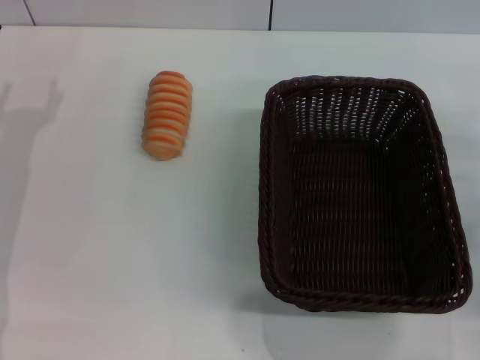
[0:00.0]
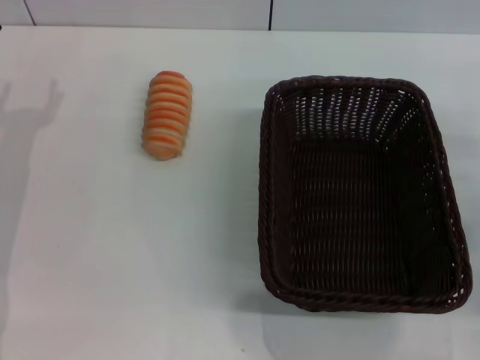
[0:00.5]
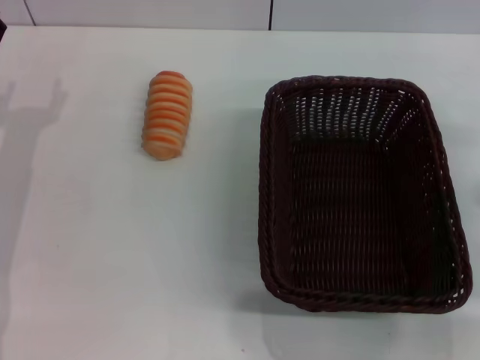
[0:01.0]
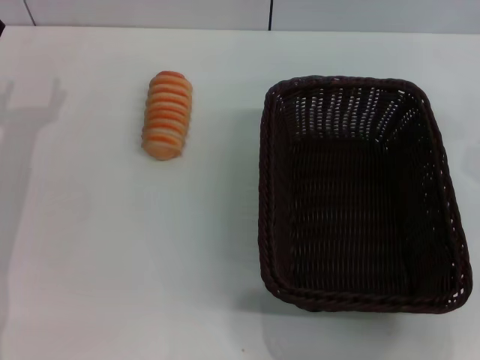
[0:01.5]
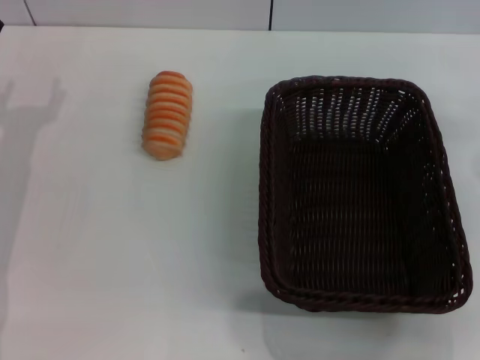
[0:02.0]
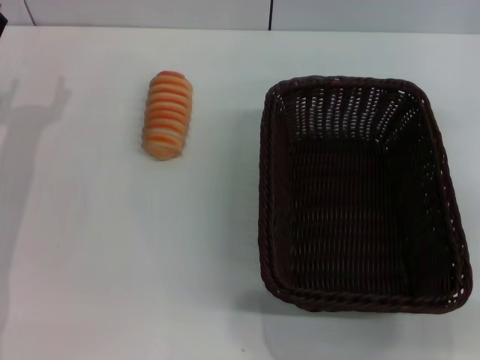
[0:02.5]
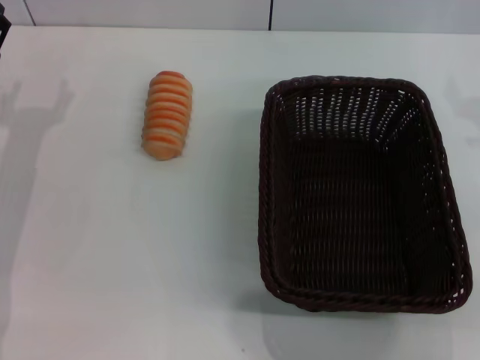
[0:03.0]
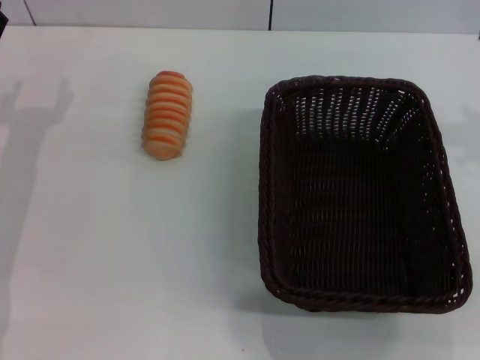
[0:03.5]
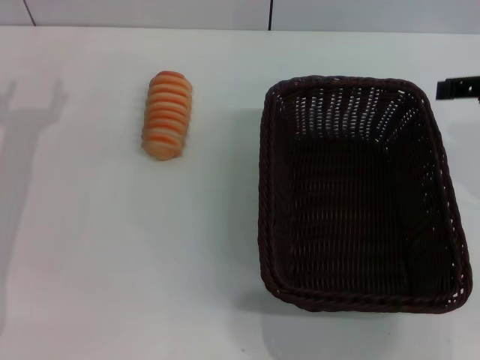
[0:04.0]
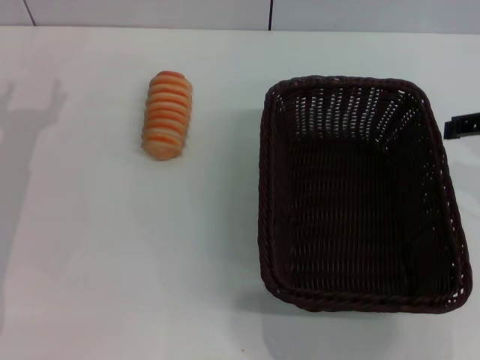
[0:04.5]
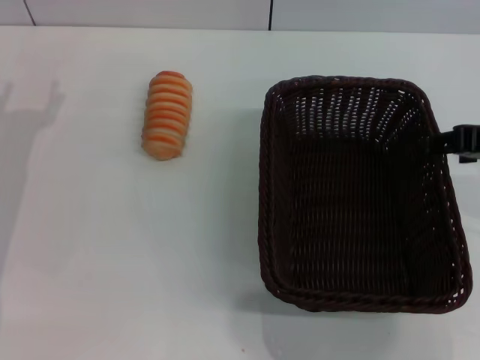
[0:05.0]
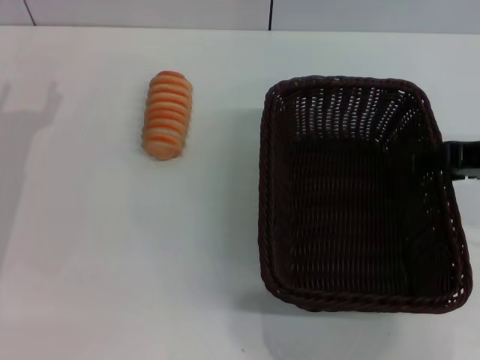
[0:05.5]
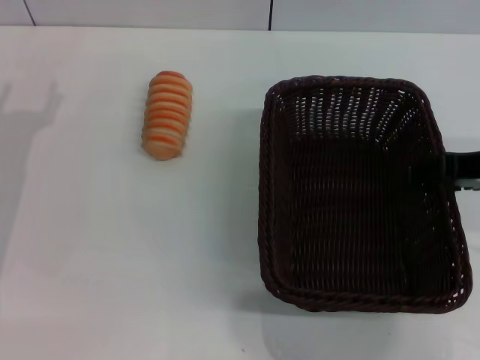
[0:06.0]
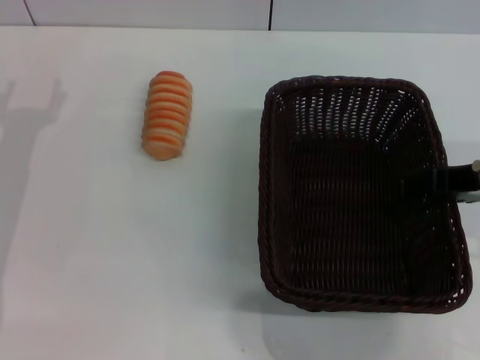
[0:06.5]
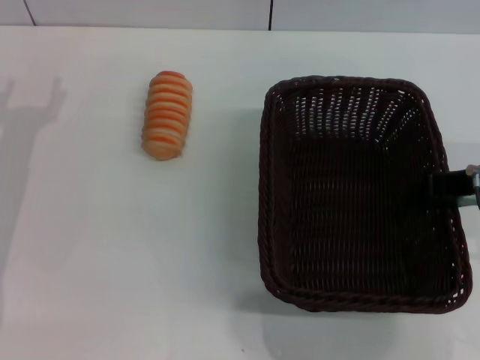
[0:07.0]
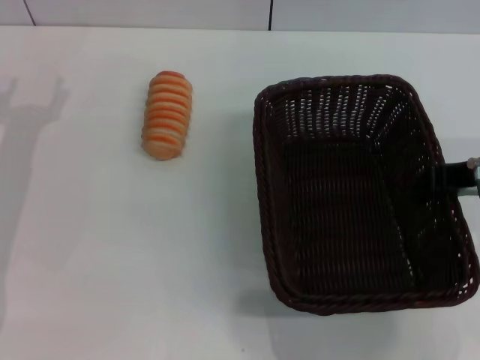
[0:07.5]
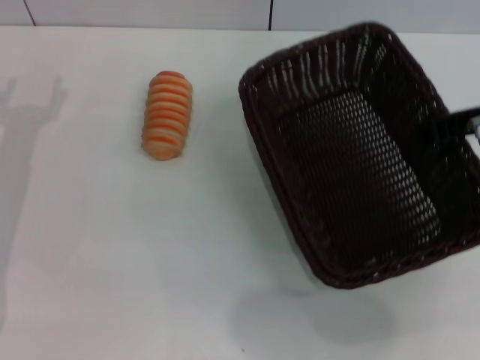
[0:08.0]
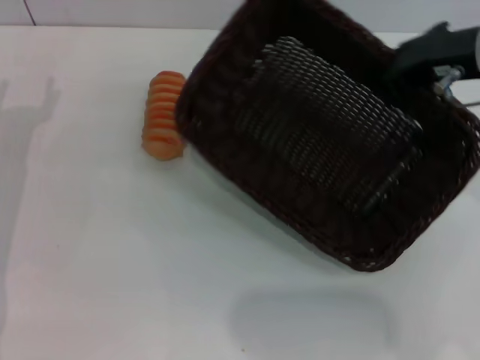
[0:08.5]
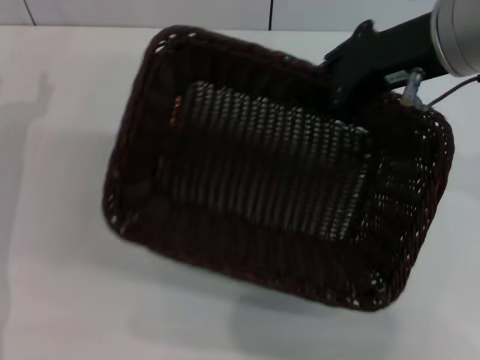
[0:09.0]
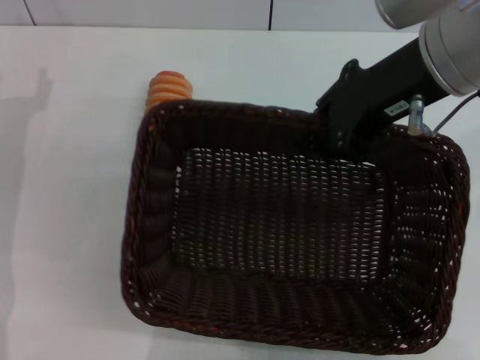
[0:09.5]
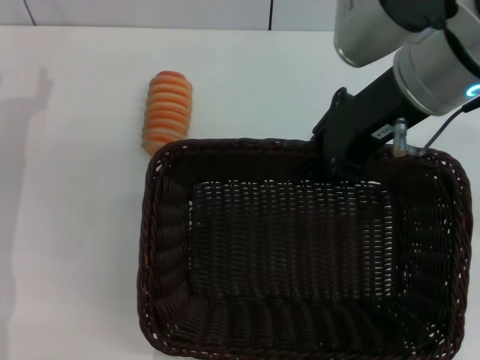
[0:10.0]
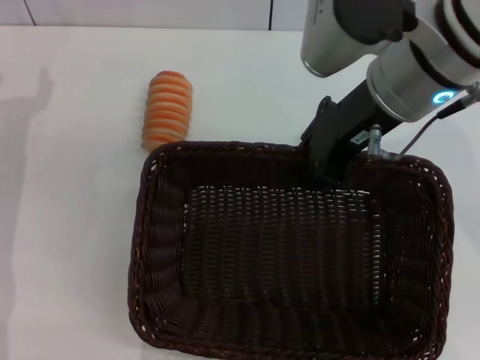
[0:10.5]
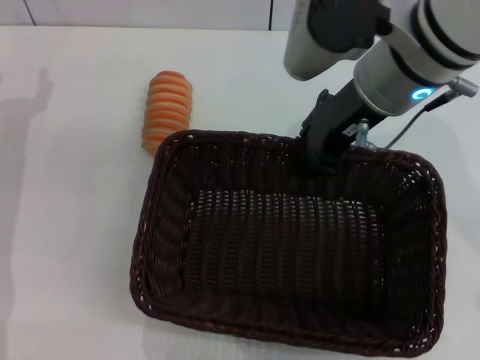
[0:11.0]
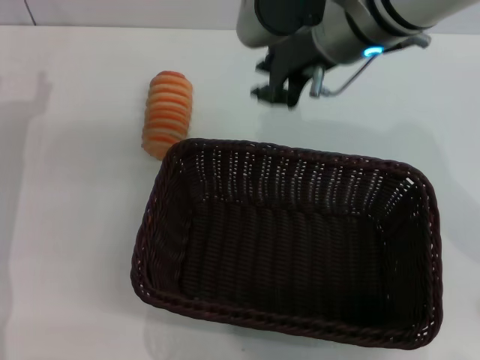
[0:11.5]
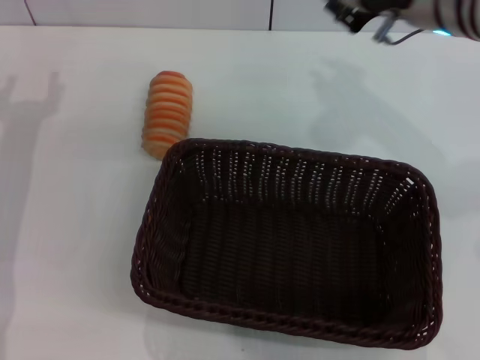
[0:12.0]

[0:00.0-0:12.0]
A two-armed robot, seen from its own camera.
Step, 0:00.0 to 0:08.0: Pick up the dark basket with the right gripper.
Step, 0:08.5 to 0:11.0: Place the dark basket in the center of view with the right gripper.
0:00.0 to 0:02.0: The right gripper heads upward, covering approximately 5 cm.
0:02.0 to 0:04.0: The right gripper moves upward, approximately 10 cm.
0:04.0 to 0:06.0: The right gripper ends up about 5 cm from where it was.
0:06.0 to 0:08.0: The right gripper closes.
0:08.0 to 0:10.0: The right gripper goes some 10 cm to the left and upward.
0:10.0 to 0:12.0: The right gripper travels forward by about 5 cm.

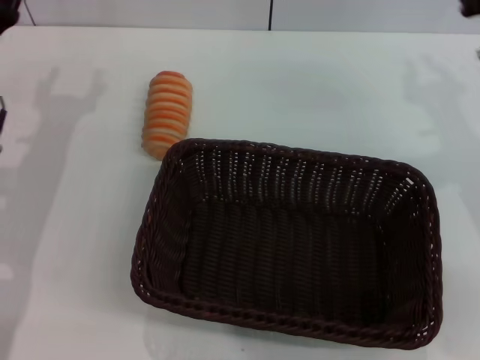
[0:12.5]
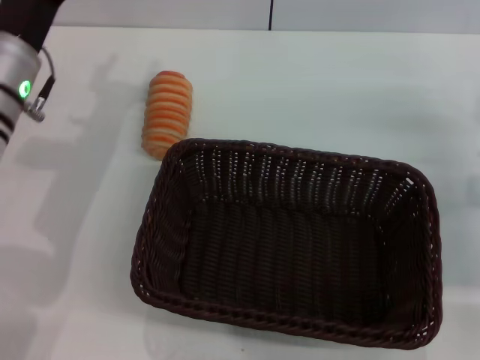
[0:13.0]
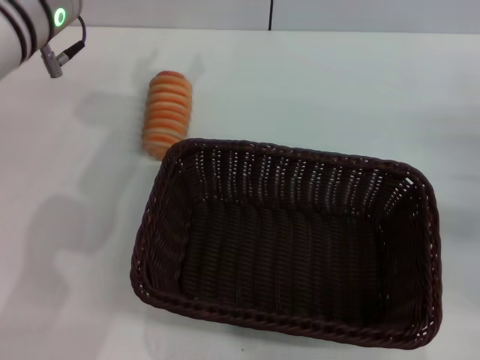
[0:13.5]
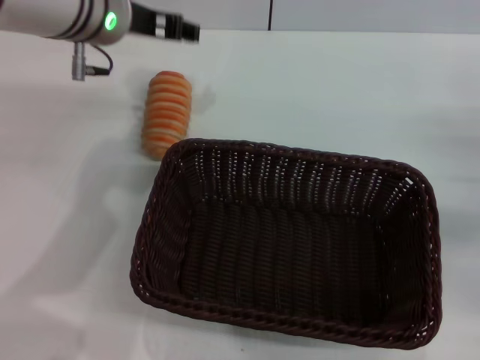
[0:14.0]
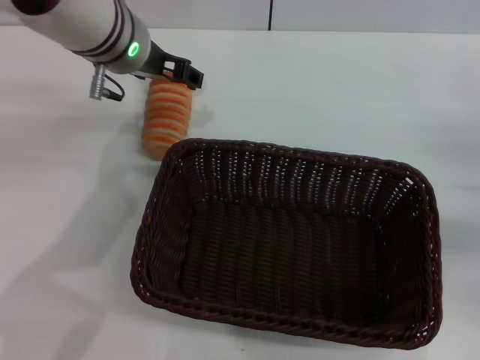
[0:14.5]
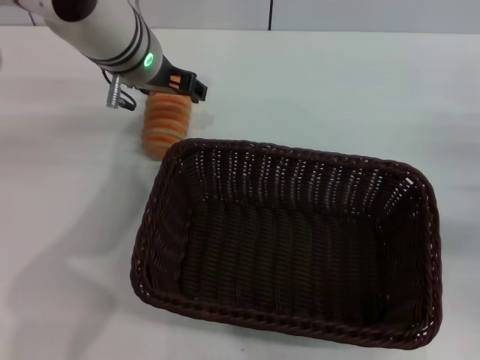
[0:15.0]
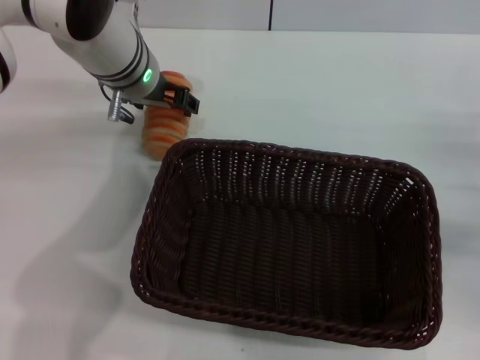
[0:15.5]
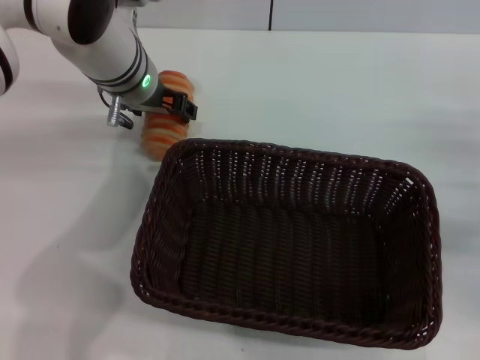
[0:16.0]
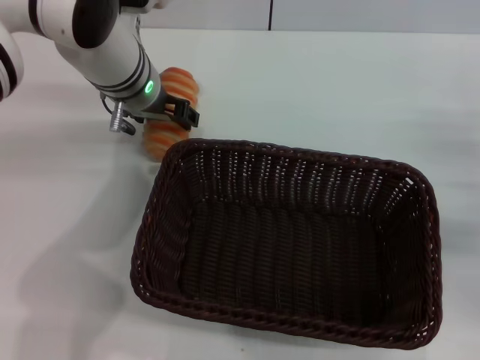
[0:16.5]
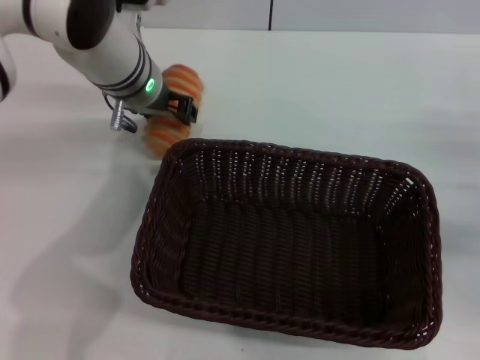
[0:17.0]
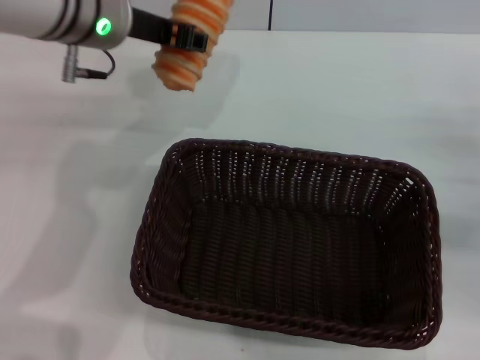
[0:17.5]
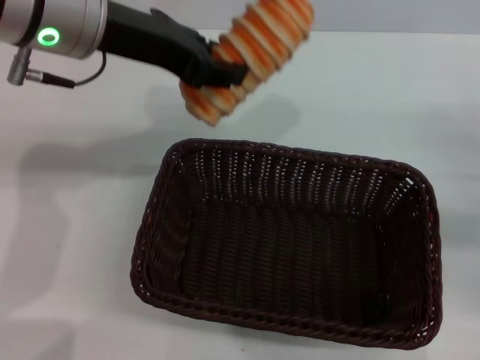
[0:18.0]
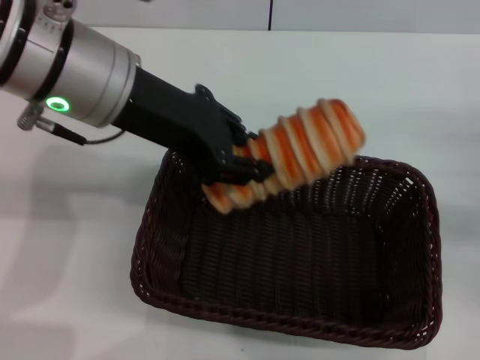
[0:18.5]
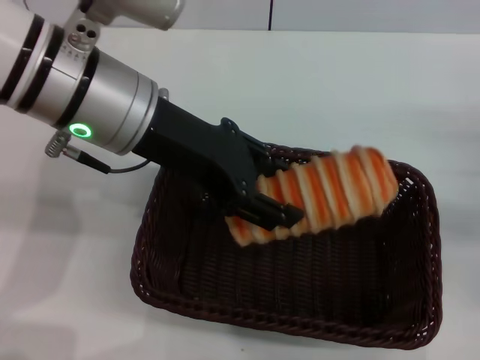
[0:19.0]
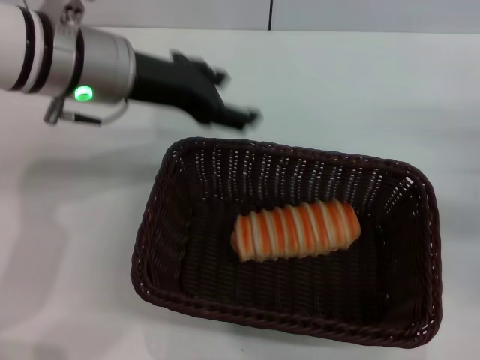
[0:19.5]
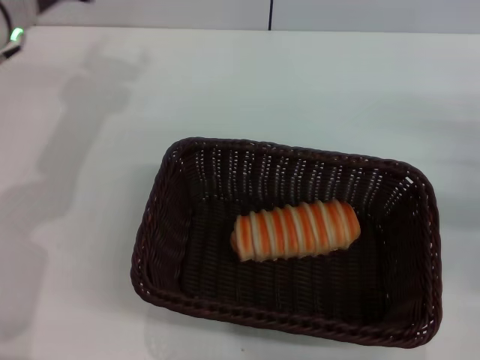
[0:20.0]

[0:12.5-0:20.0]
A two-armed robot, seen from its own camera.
Step, 0:12.5 to 0:17.0: Pick up the long bread with the left gripper.
Step, 0:17.5 to 0:19.0: Place the long bread into the dark basket with the left gripper.
0:12.5 to 0:14.5: The left gripper moves to the right, upward and forward, some 20 cm; the right gripper is displaced to the right, downward and backward by some 15 cm.
0:14.5 to 0:16.5: The left gripper goes some 5 cm downward.
0:16.5 to 0:18.0: The left gripper shifts about 15 cm upward and backward, and closes its fingers.
0:18.0 to 0:20.0: The left gripper shifts some 15 cm downward, to the left and forward, and opens.
